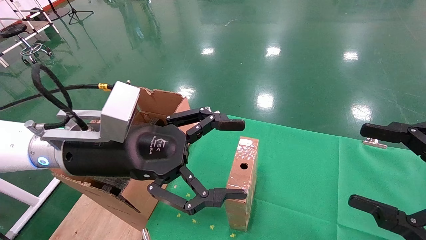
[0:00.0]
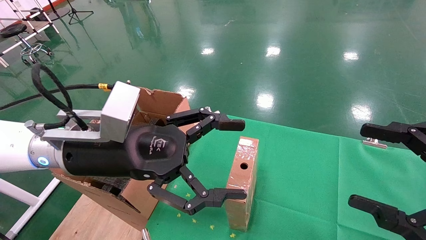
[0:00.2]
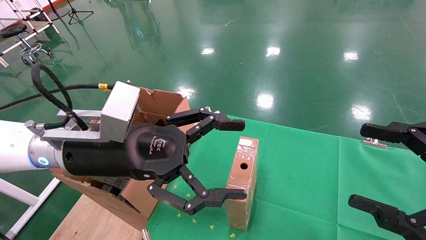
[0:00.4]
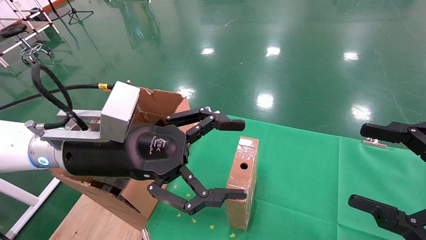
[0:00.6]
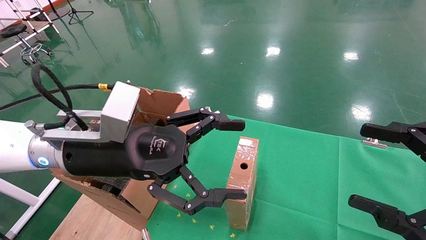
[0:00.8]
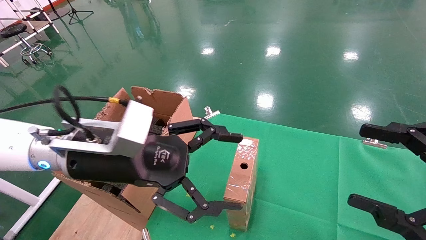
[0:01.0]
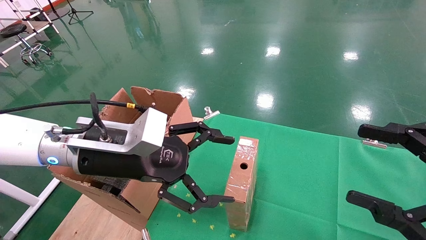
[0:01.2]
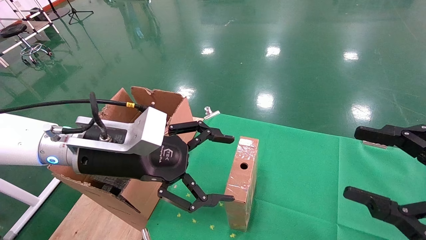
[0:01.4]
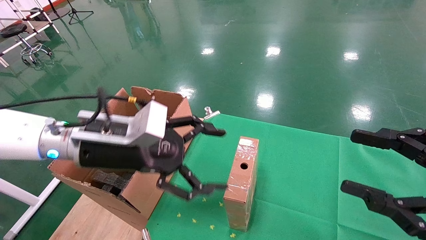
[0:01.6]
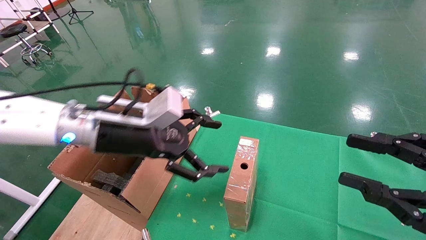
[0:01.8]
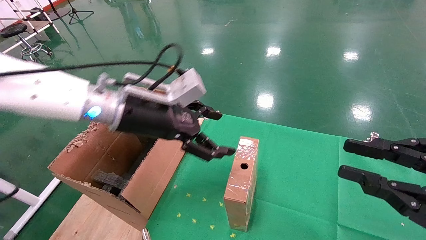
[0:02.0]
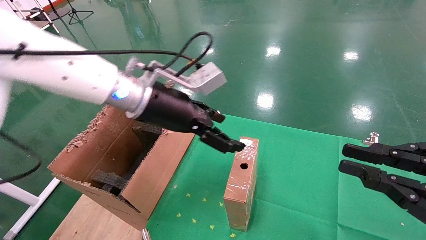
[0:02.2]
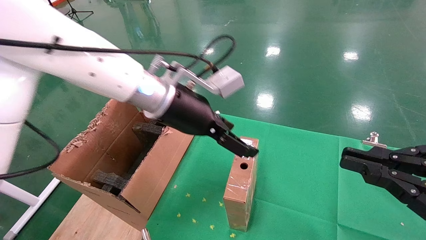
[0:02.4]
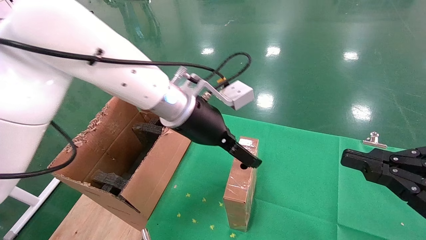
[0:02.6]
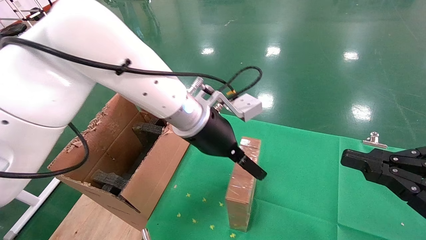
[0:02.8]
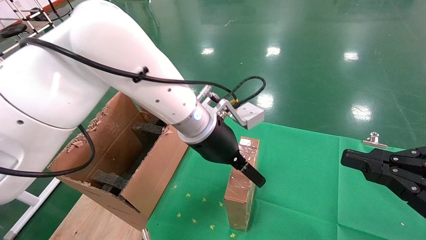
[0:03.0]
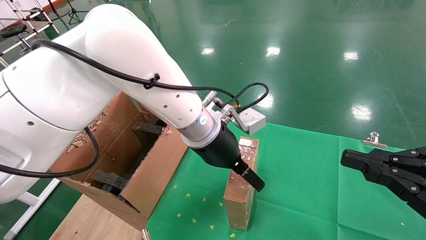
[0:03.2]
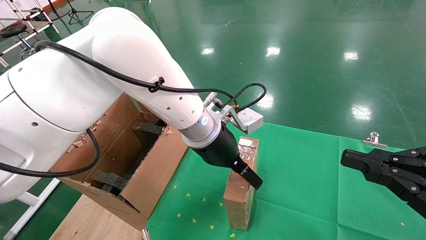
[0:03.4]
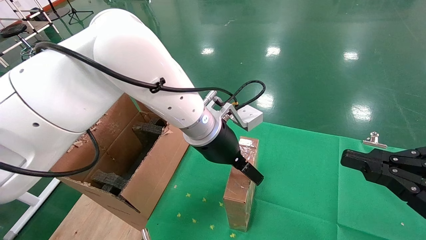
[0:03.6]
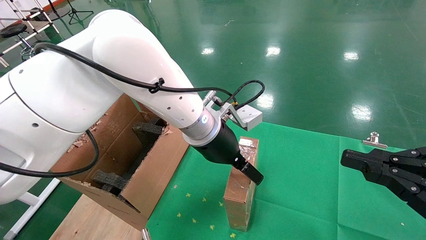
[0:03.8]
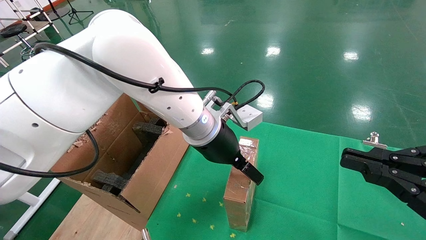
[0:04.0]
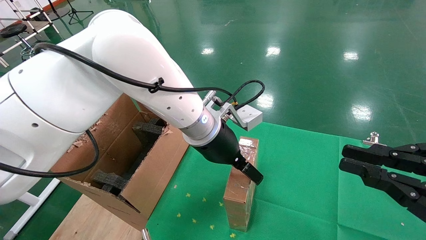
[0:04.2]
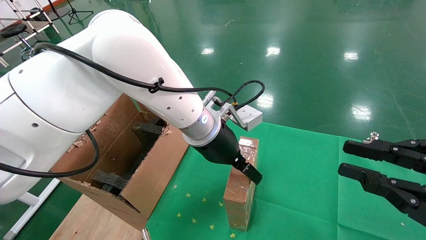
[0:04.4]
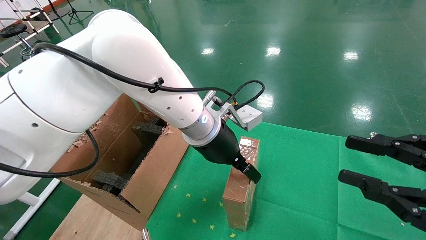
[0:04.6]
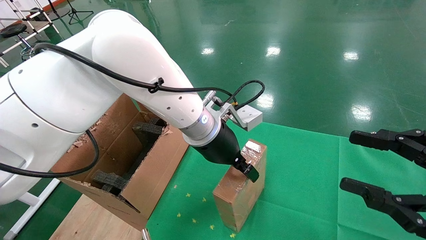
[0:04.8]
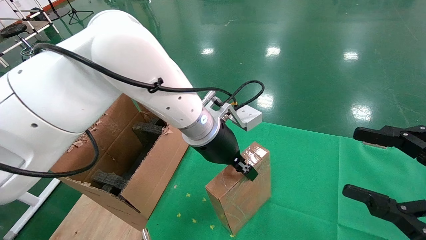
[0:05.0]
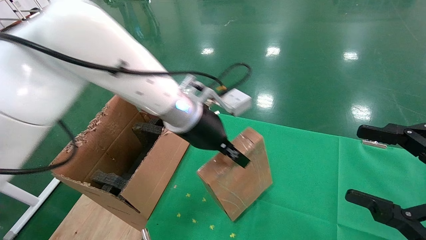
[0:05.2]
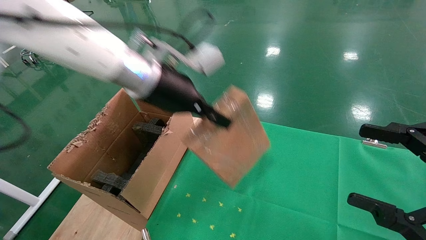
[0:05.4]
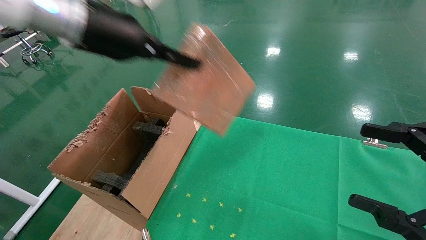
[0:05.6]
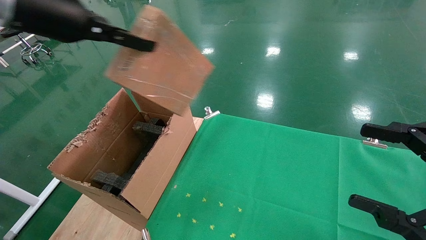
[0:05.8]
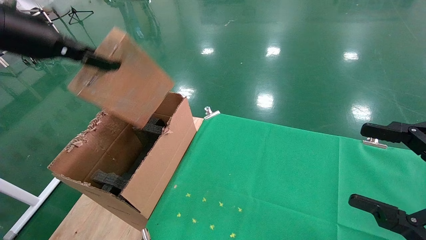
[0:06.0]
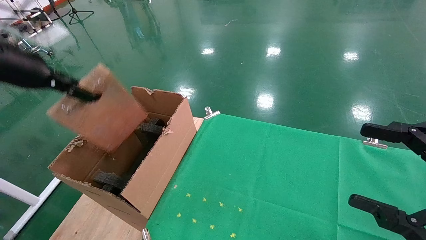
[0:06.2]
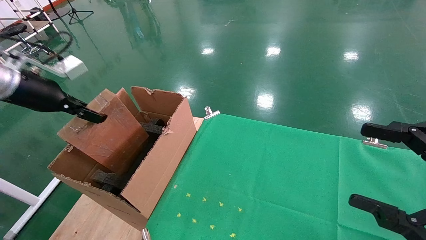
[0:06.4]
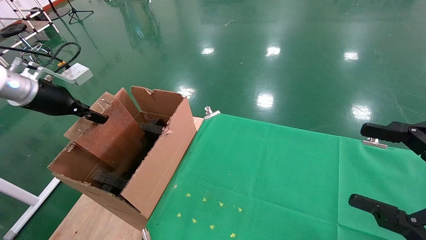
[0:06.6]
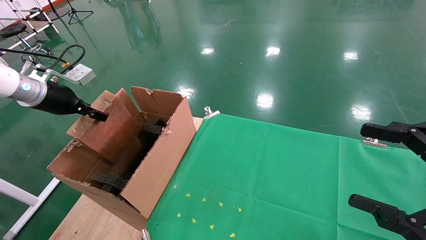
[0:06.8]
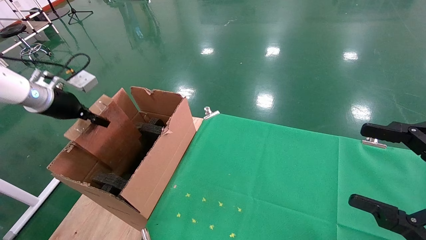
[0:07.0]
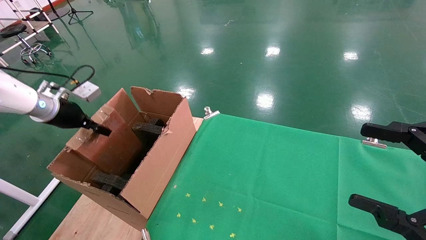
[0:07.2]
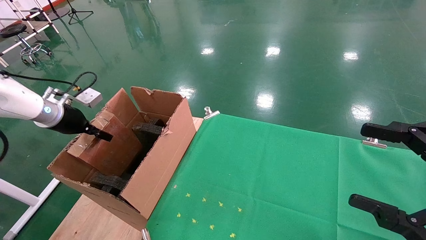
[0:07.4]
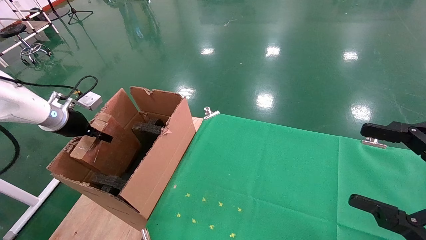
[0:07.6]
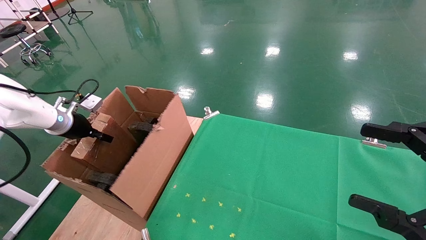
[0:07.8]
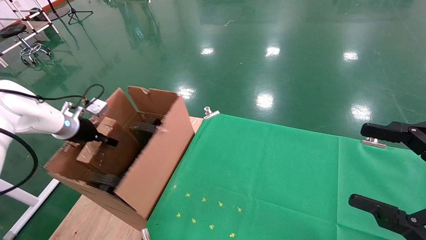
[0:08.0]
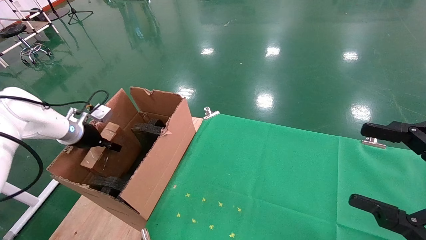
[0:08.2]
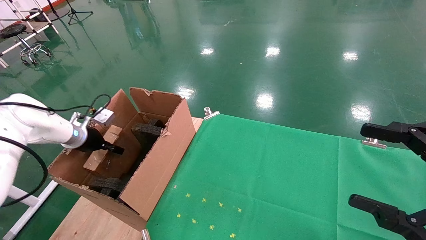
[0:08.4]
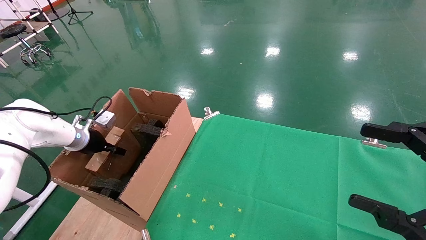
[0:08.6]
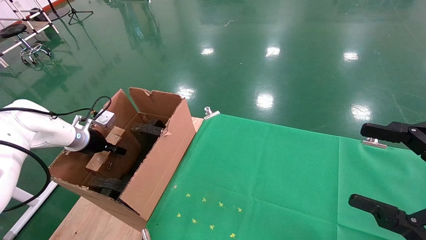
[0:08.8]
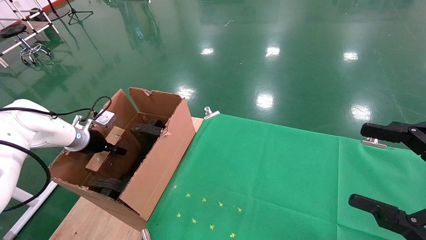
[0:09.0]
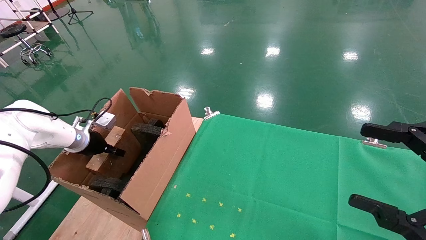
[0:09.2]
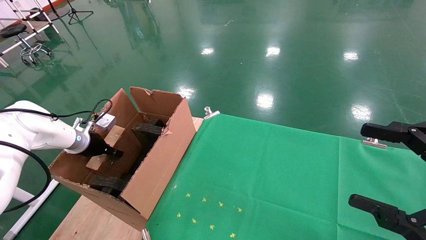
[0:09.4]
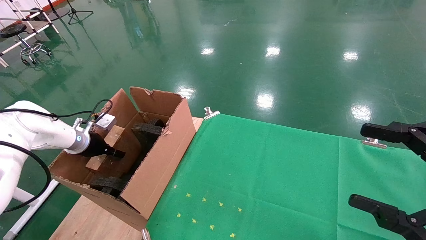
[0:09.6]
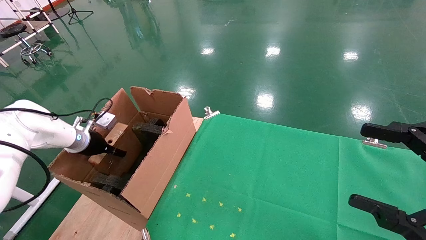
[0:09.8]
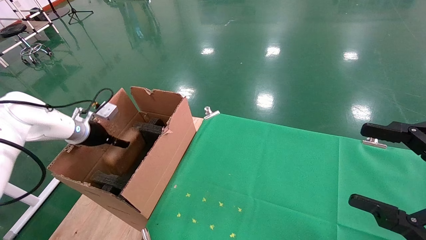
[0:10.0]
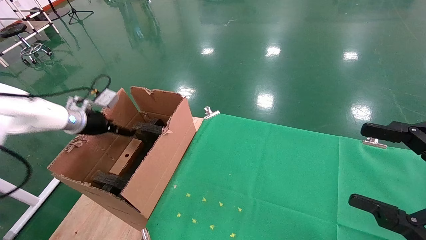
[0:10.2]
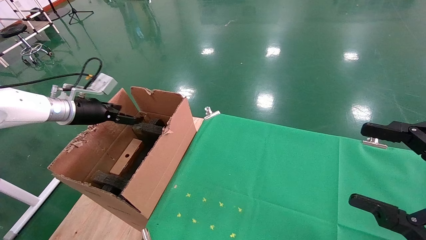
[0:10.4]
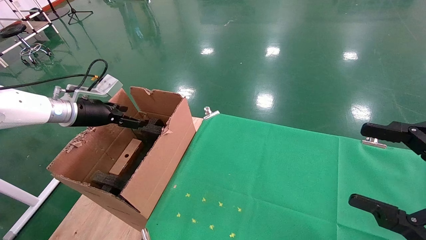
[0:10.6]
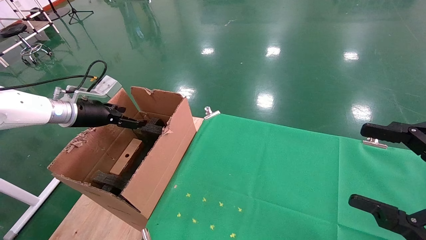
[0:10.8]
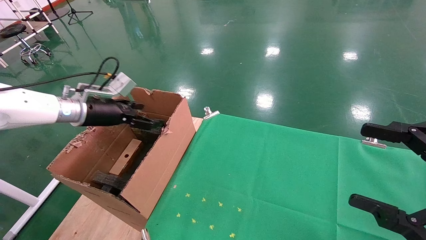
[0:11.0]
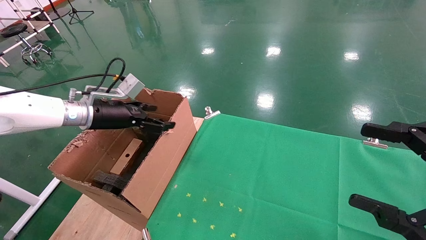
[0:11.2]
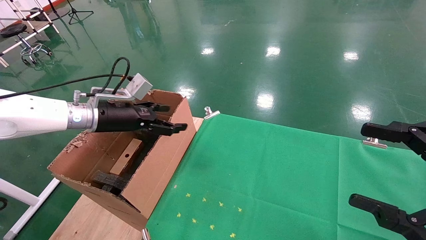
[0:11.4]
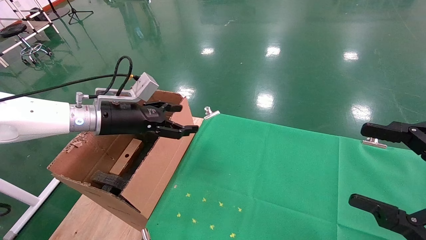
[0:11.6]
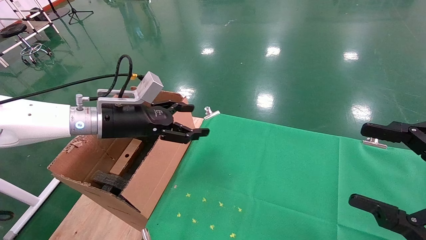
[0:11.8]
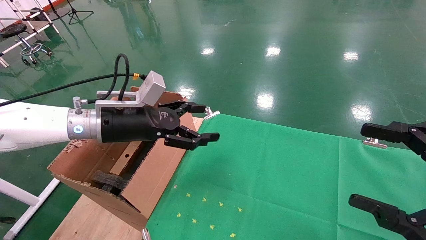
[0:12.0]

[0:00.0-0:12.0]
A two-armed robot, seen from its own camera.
Task of the whole recording: using a robotic arm to pick up a cardboard box and palace it the carton.
Step, 0:01.2 to 0:04.8: Pick up the mouse and the power cord paper box.
Step, 0:05.0 to 0:10.4: Place the mouse and the power cord paper box into the container.
0:01.6 to 0:03.0: The left gripper shifts approximately 15 cm to the right and forward, while the right gripper closes.
0:03.0 to 0:04.4: The grippers stay close to where they were, moving slightly.
0:04.4 to 0:06.0: The left gripper travels to the left and upward by roughly 35 cm, and closes. The right gripper opens its fingers.
0:06.0 to 0:07.6: The left gripper goes about 25 cm downward, forward and to the left.
0:07.6 to 0:09.0: The left gripper is displaced downward by roughly 10 cm.
0:09.0 to 0:10.4: The left gripper goes approximately 10 cm upward, and opens its fingers.
0:10.4 to 0:12.0: The left gripper heads to the right and backward, covering roughly 20 cm.

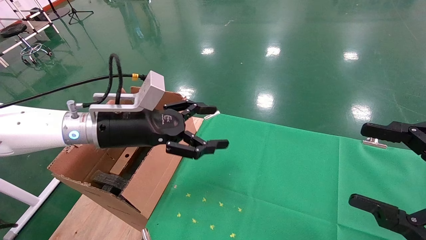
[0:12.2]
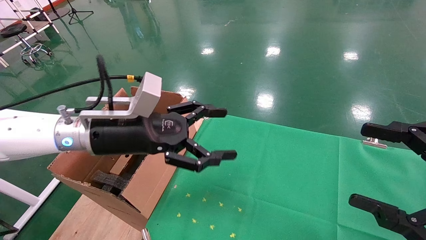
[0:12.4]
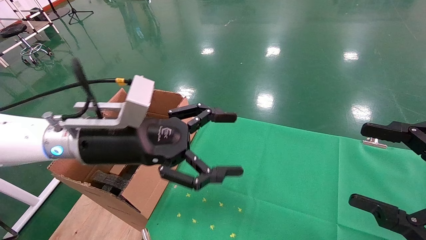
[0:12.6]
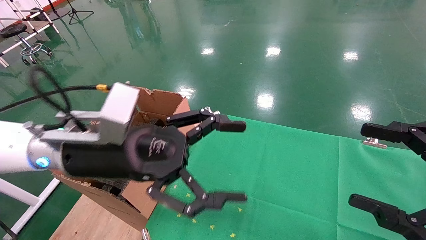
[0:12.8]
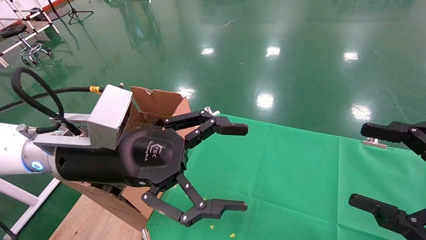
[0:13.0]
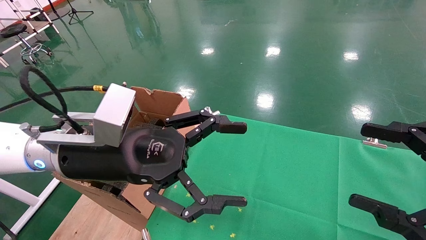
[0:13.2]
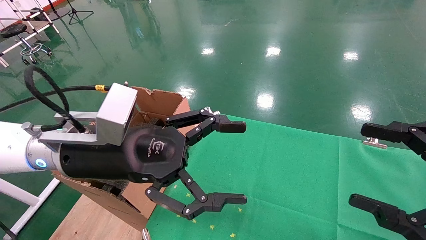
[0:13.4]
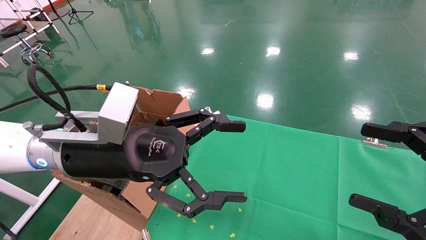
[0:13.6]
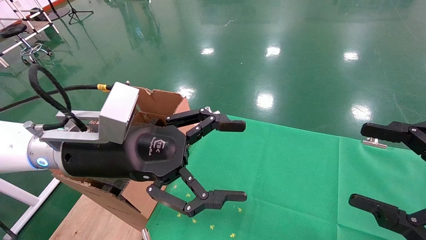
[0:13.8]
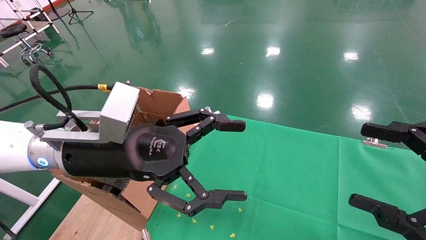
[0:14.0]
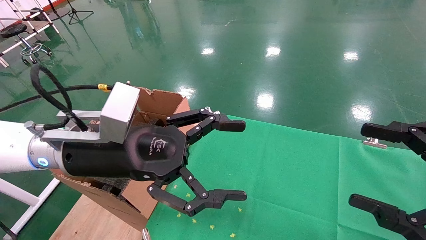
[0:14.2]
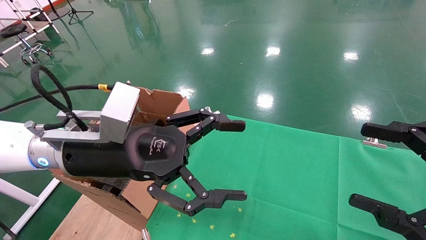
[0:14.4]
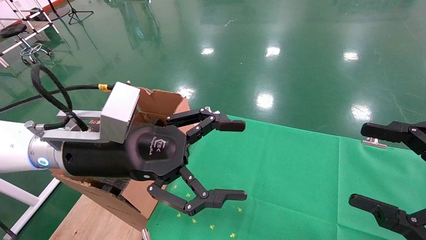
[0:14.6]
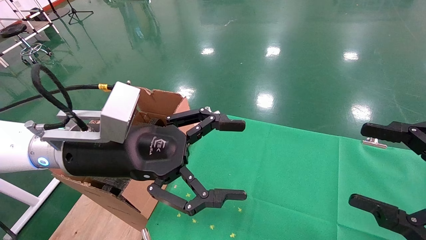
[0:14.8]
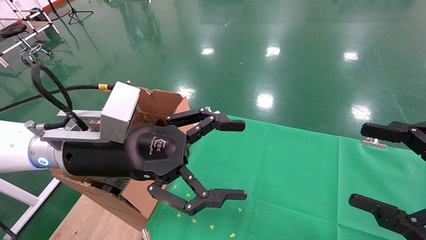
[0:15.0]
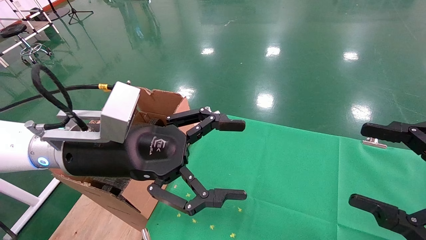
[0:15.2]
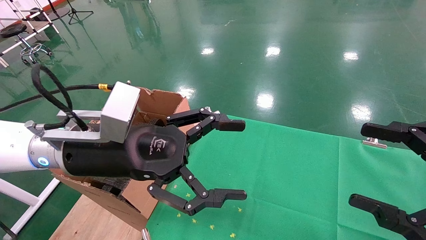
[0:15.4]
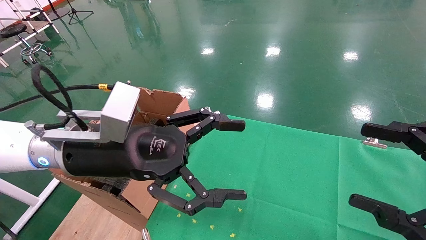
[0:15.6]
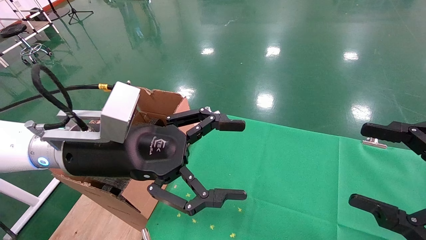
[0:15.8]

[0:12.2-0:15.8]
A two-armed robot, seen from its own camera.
Task of the whole recording: using a robotic arm to pick up a cardboard box and palace it the carton.
0:12.2 to 0:14.0: The left gripper travels backward by roughly 10 cm.
0:14.0 to 0:15.8: Both grippers stay about where they are.

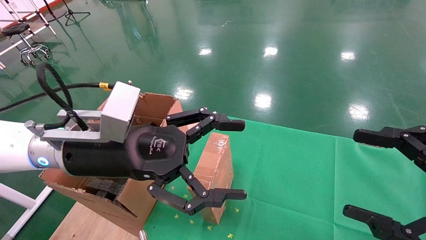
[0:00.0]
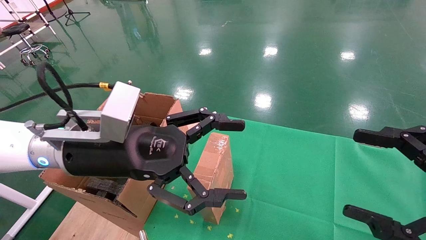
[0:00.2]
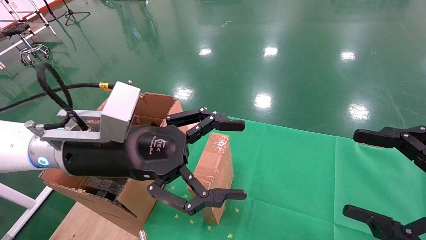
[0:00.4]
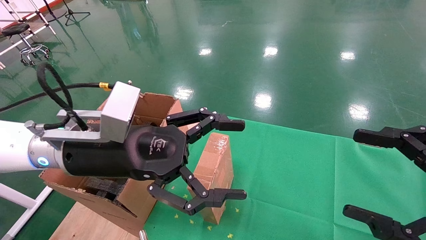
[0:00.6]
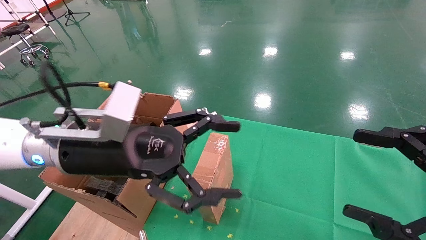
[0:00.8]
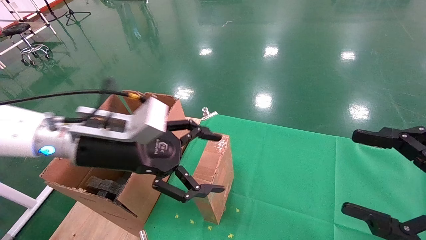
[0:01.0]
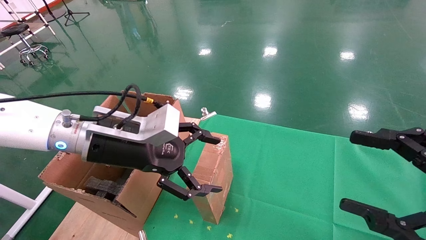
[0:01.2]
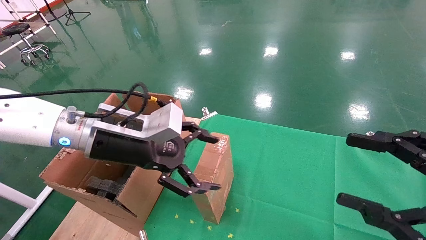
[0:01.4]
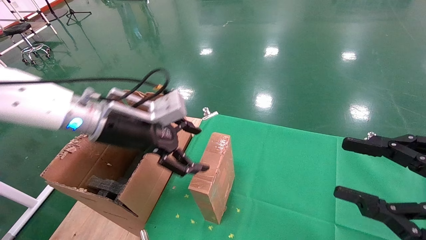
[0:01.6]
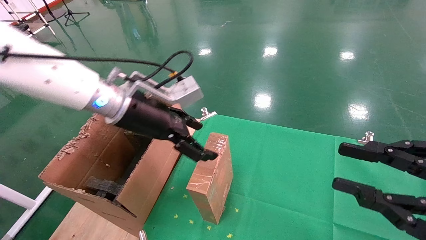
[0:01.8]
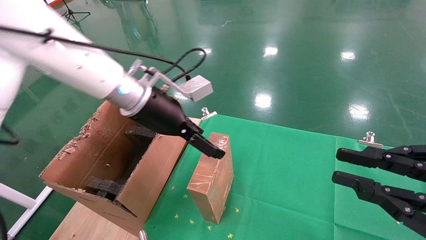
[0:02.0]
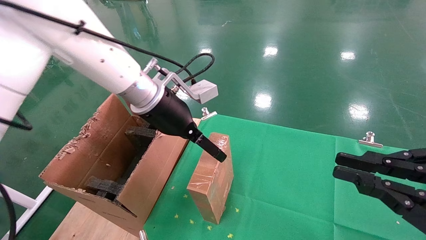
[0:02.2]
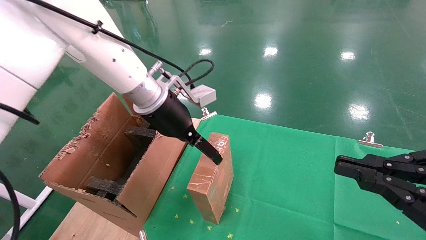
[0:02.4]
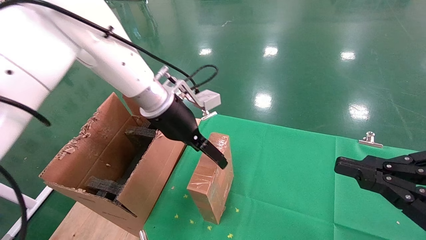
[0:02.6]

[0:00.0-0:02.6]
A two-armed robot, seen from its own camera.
Task of the whole recording: using a robotic arm to pick up a cardboard box and palace it the carton.
0:01.2 to 0:02.6: The right gripper closes its fingers, while the left gripper is displaced forward and to the right by roughly 15 cm.
